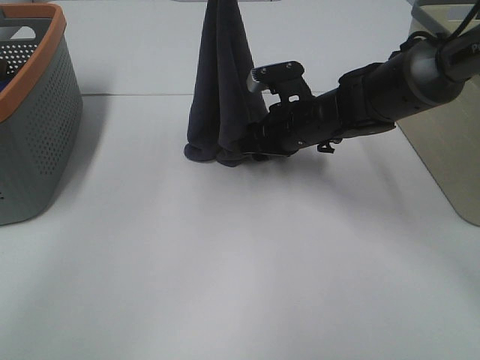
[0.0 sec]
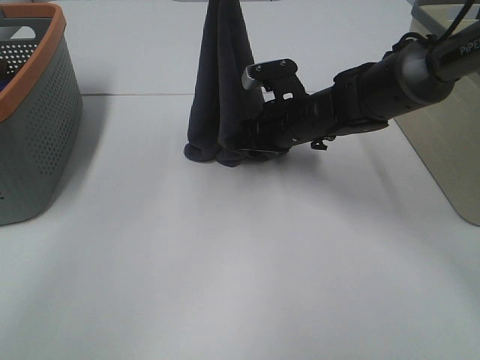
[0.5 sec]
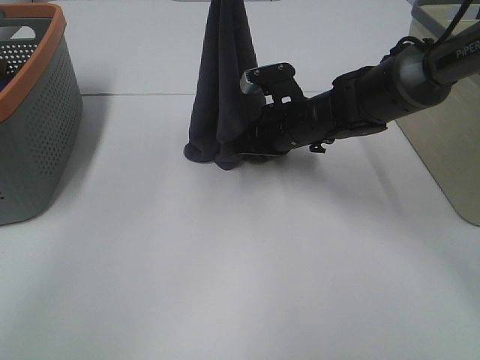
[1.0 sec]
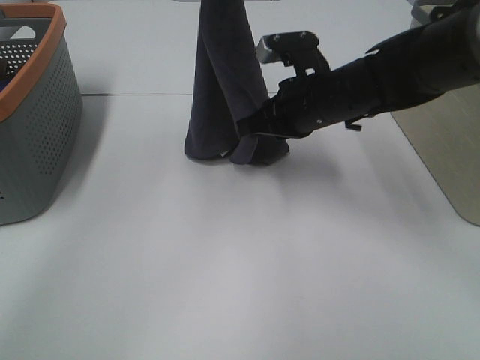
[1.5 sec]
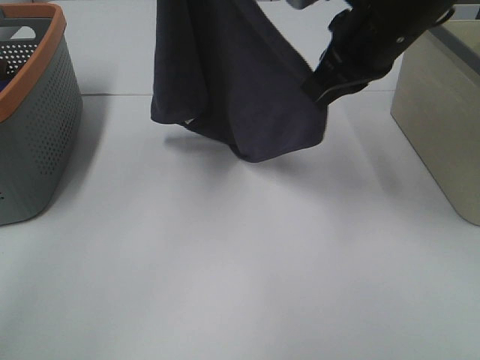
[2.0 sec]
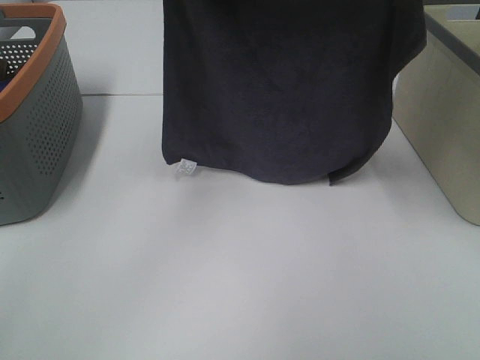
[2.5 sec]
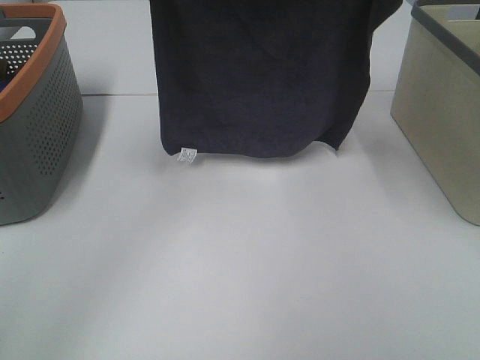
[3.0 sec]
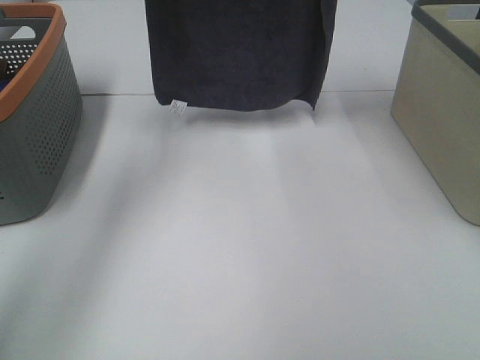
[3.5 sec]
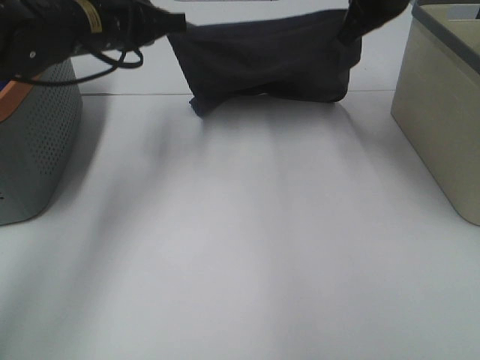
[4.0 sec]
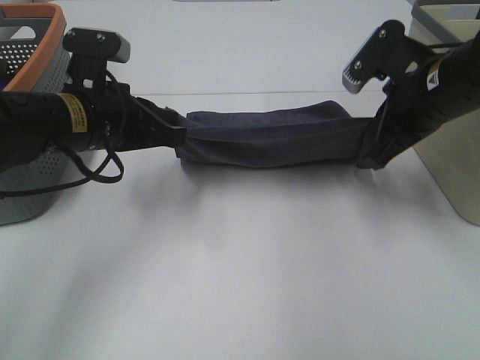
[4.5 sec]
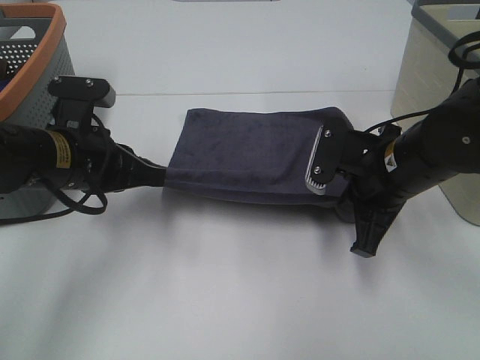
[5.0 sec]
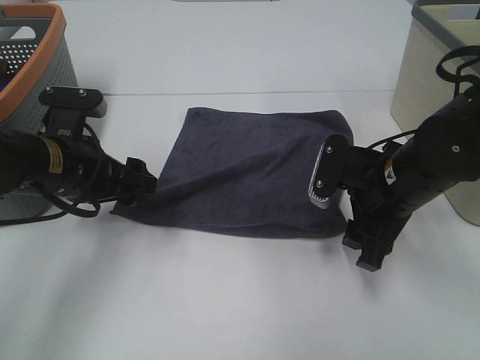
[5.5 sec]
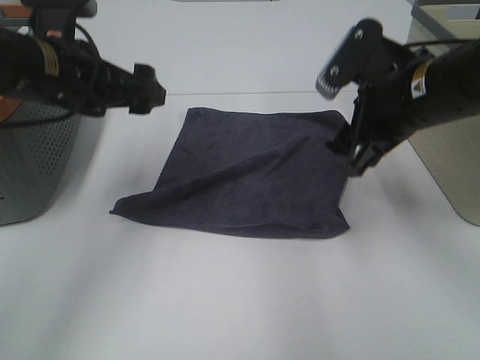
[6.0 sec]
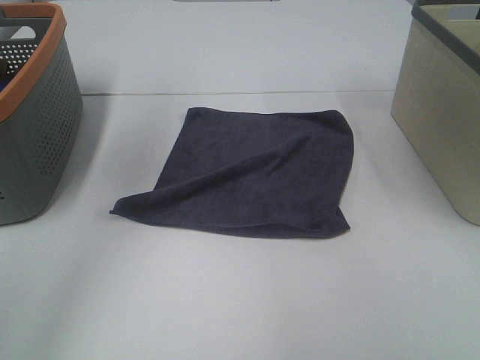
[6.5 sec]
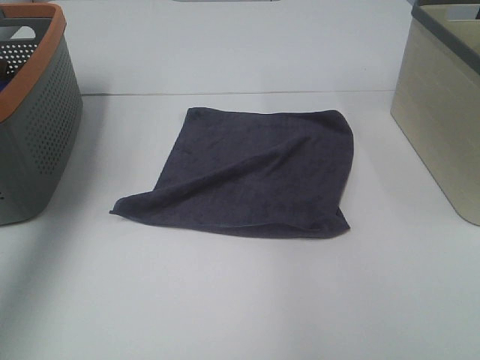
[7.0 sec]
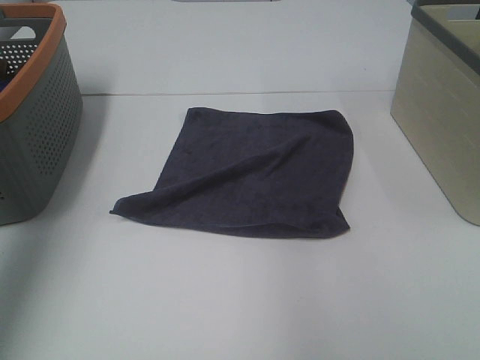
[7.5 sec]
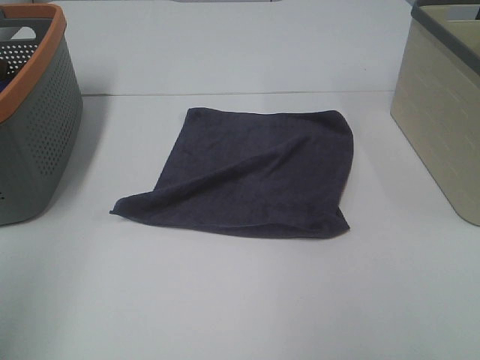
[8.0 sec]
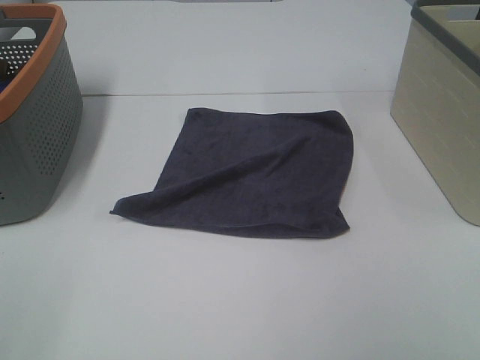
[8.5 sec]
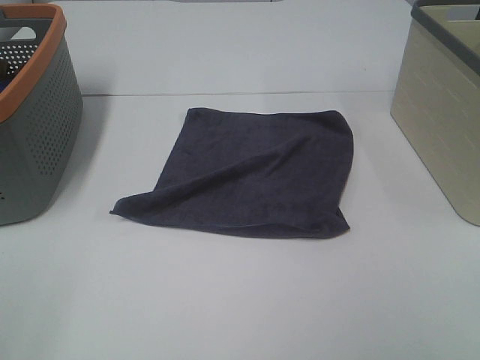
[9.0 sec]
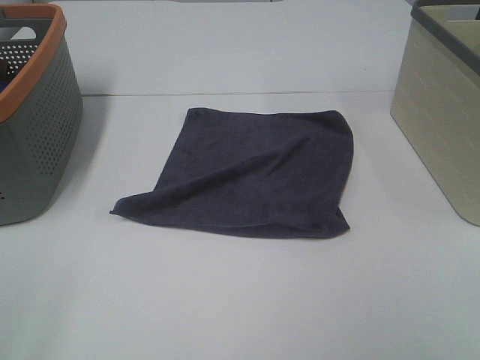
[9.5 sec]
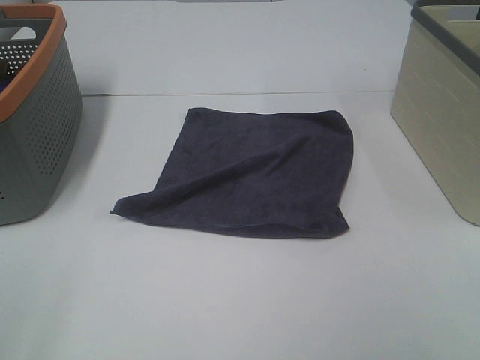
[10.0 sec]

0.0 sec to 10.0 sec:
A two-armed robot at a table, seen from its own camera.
Task of the whole recording: Remove the towel and place it.
Step, 1.0 sec to 2.0 sec: Left hand: spread the grey towel flat on the table.
Step, 1.0 sec to 2.0 sec: Right hand: spread the grey towel flat on the table.
0.0 sec to 2.0 sec: The right gripper moves upward, about 20 cm, and closes its fingers. The left gripper travels upward and to the left by about 10 cm.
2.0 sec to 4.0 sec: The right gripper heads forward, covering roughly 10 cm. The left gripper goes some 20 cm downward.
4.0 sec to 6.0 sec: The left gripper moves backward, about 5 cm, and opens. The right gripper heads backward, covering approximately 15 cm, moves roughly 15 cm downward and comes back, and opens its fingers.
6.0 sec to 8.0 sec: The left gripper heads backward, to the left and upward, covering some 35 cm; the right gripper is displaced backward, upward and to the right by roughly 25 cm.
8.0 sec to 10.0 sec: The left gripper heads downward and backward, covering some 10 cm.
